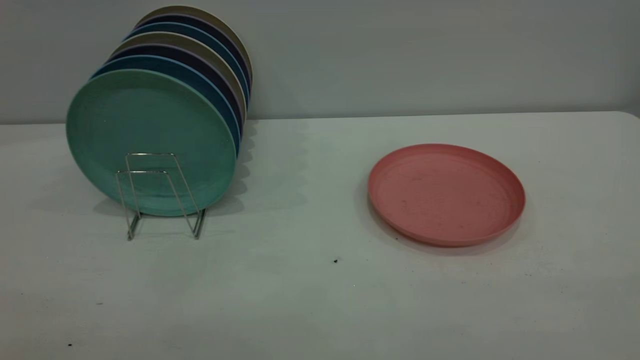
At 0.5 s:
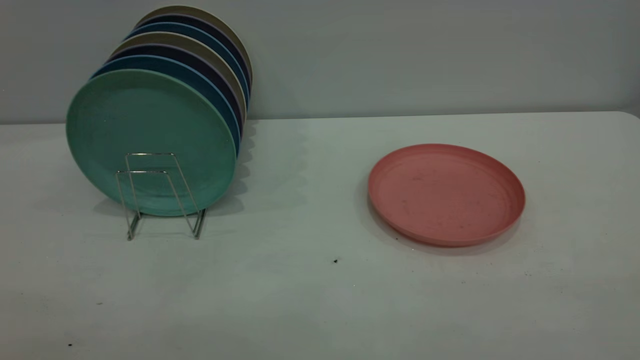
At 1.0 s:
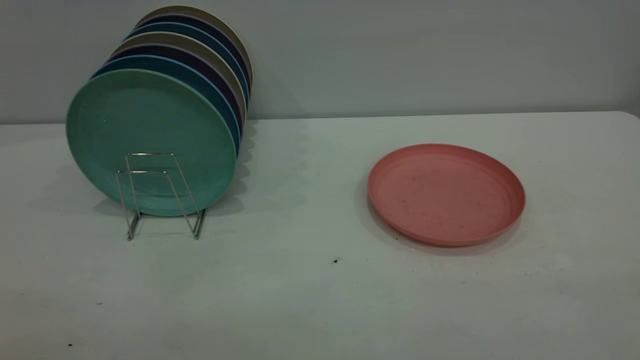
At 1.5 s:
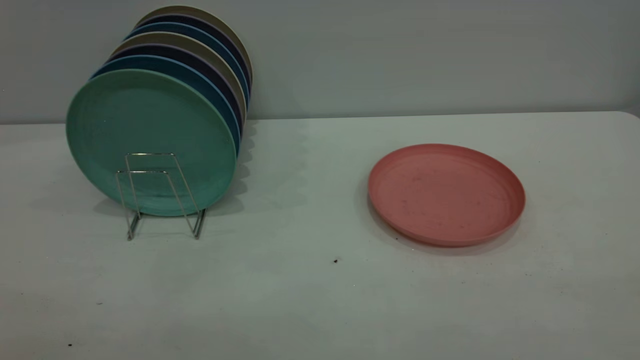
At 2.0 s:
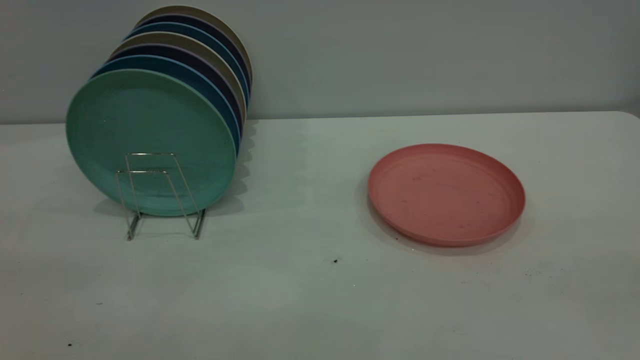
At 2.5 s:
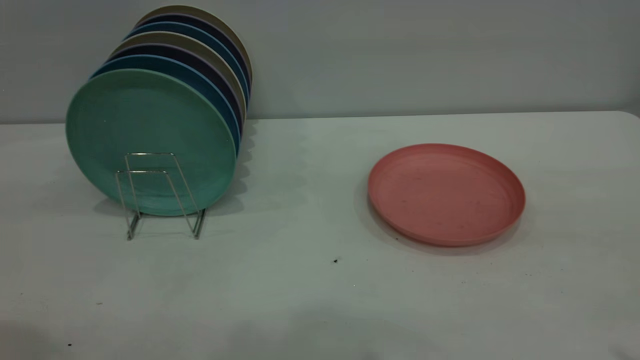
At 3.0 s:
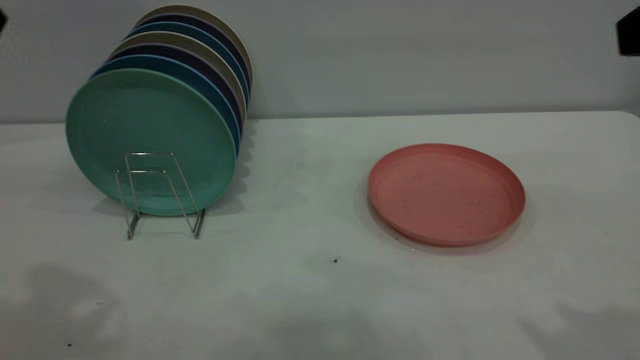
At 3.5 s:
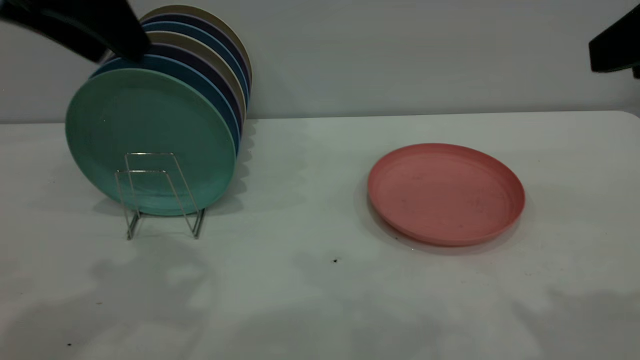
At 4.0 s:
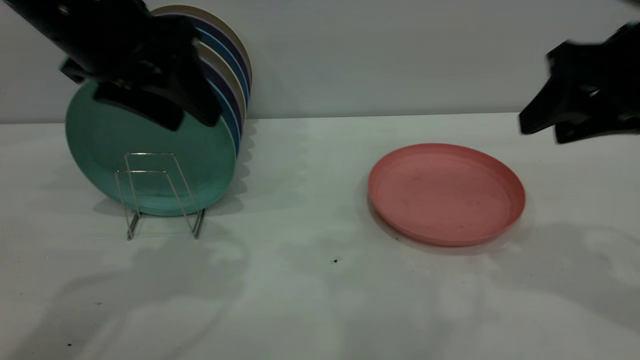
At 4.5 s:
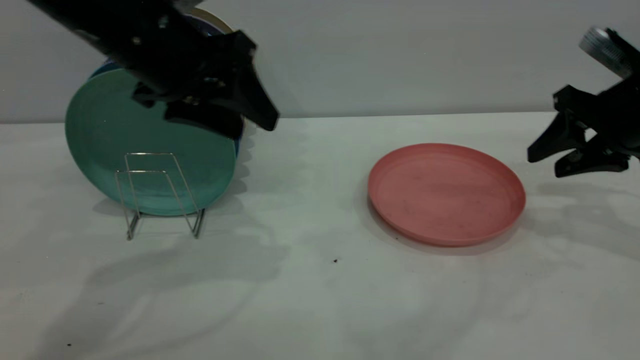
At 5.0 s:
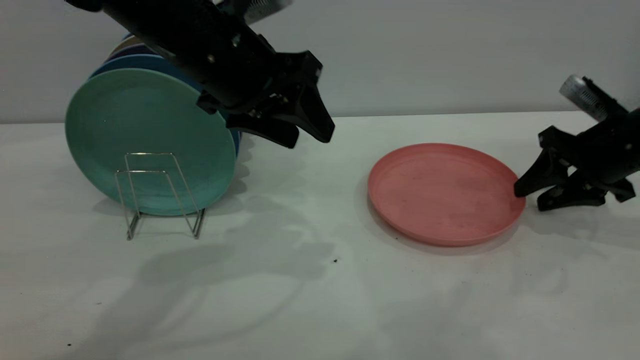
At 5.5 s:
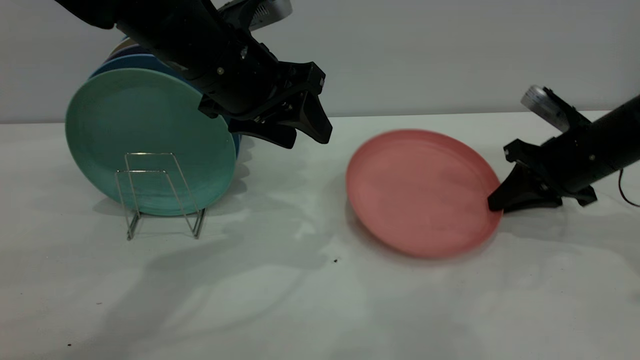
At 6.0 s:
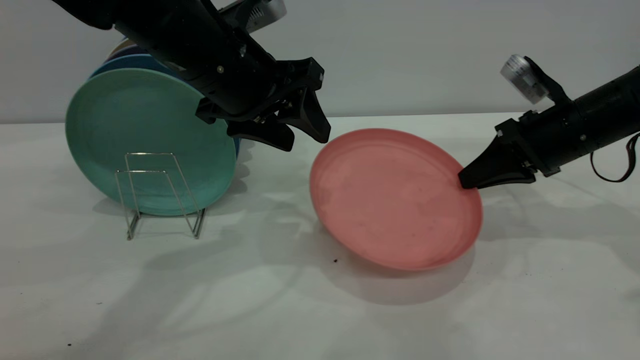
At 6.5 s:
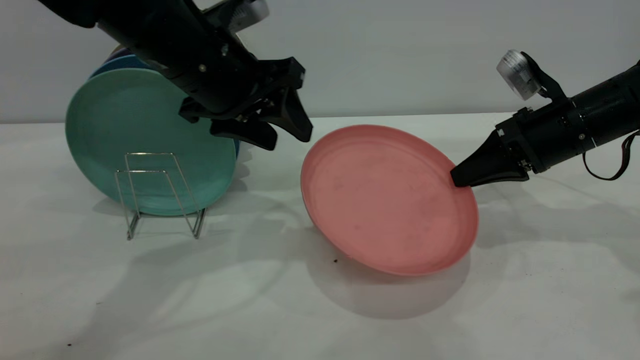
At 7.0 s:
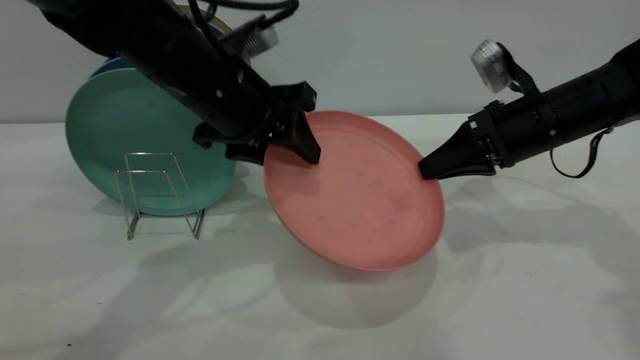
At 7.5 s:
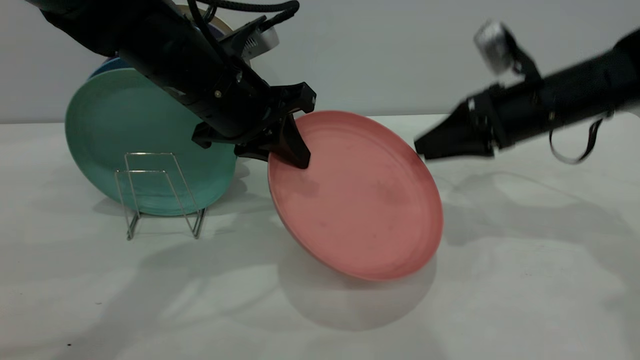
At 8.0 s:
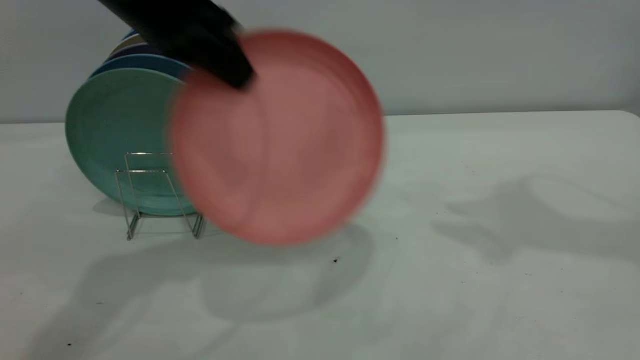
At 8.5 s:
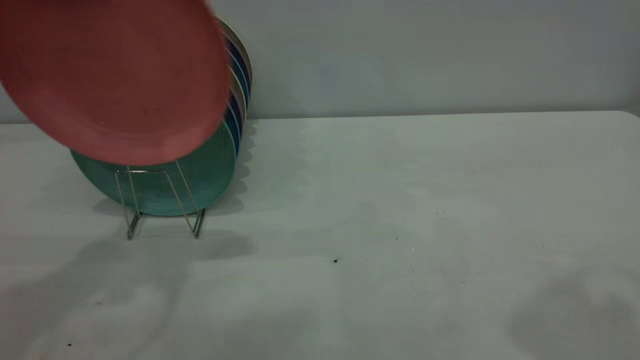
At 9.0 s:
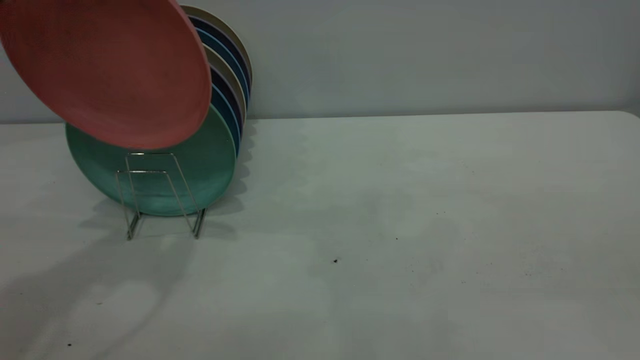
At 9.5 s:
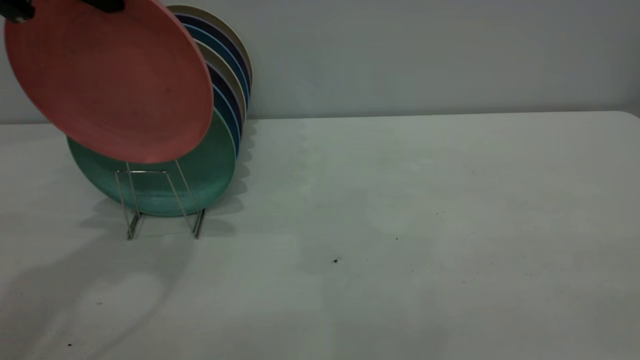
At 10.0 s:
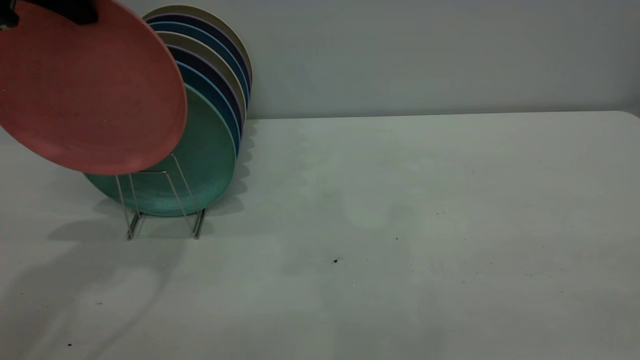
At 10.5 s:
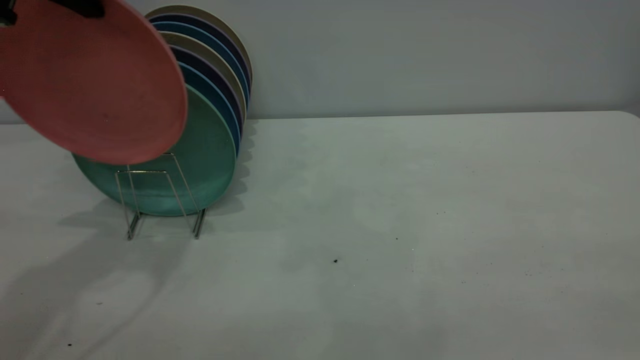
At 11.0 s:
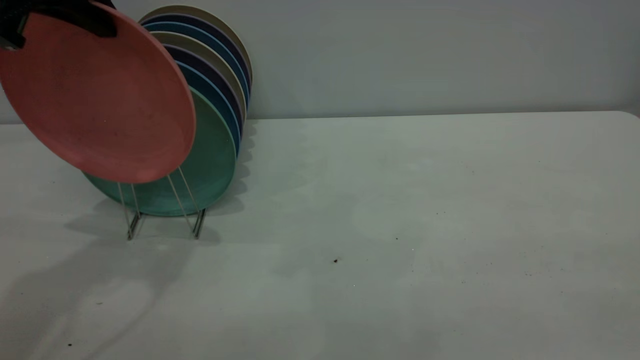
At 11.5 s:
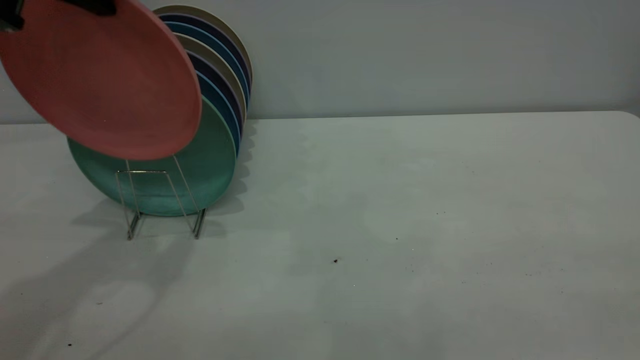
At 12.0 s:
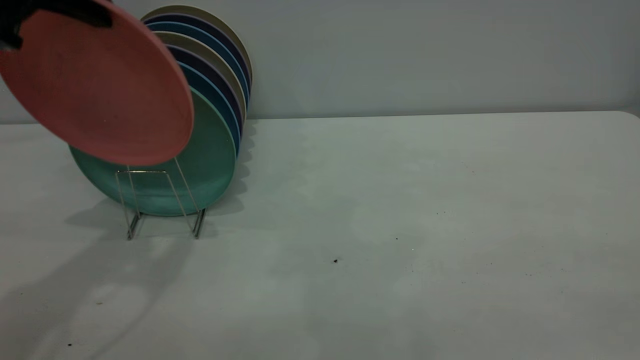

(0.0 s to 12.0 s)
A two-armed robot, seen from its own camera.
Task of the whole recording: the right gripper grasp the pink plate, the right gripper pass the pink plate to the left gripper, and the left gripper place the pink plate on the plate rack.
Step, 0.0 s - 5.5 s: Pick up the plate with the right gripper.
Step, 6.0 s - 7.5 s: Pass the plate from the right gripper to the left gripper.
2.0 s - 4.0 s: The left gripper goes approximately 30 cm forward, downward and to the right. The right gripper shifts about 30 cm forward and downward.
4.0 s - 6.0 s: The left gripper goes some 10 cm to the right and downward. The right gripper is displaced downward and forward by about 15 cm, and closes its fingers.
6.0 s - 8.0 s: The left gripper moves upward and to the left, approximately 10 cm, and closes up, while the right gripper is displaced upward by about 25 cm, and opens.
8.0 s - 10.0 s: The left gripper is displaced to the left by some 10 cm. The right gripper travels backward by approximately 35 cm, and closes.
10.0 s - 12.0 s: There are only small adjustments of the grippers.

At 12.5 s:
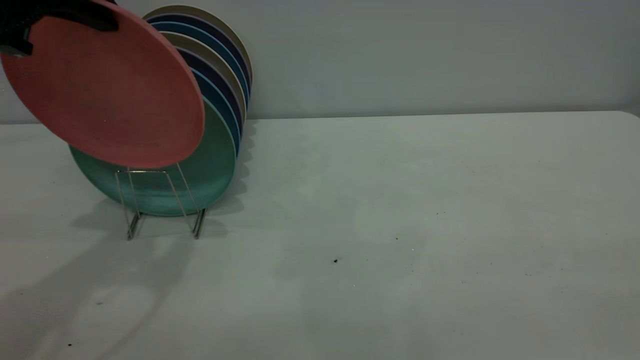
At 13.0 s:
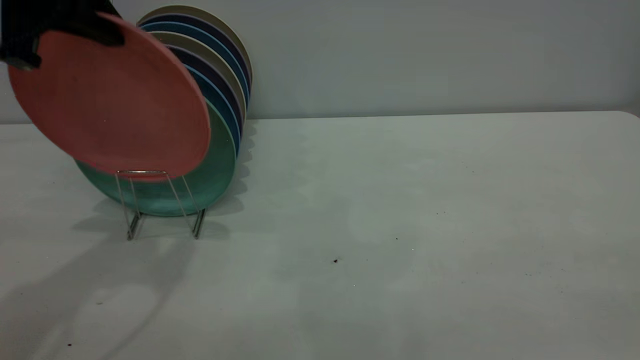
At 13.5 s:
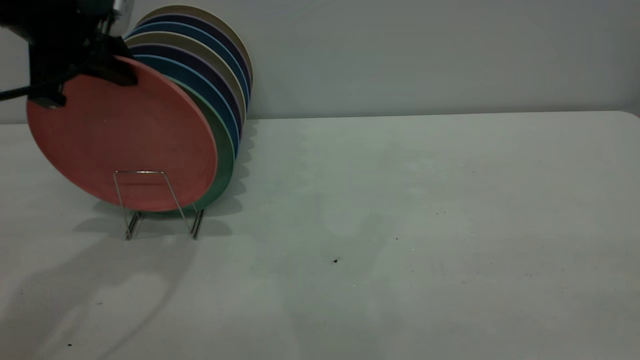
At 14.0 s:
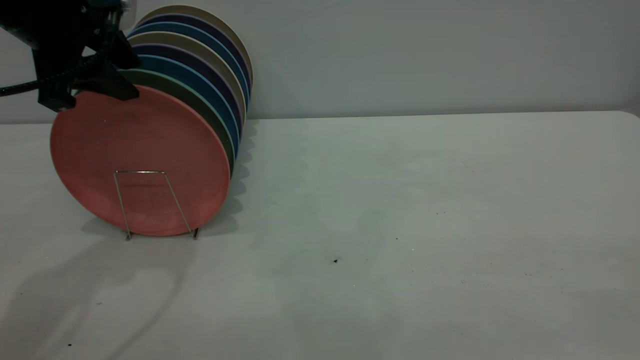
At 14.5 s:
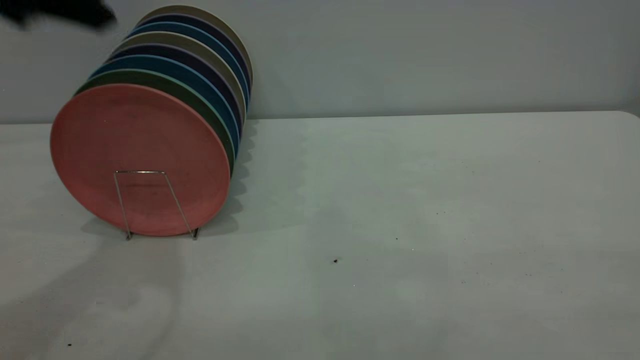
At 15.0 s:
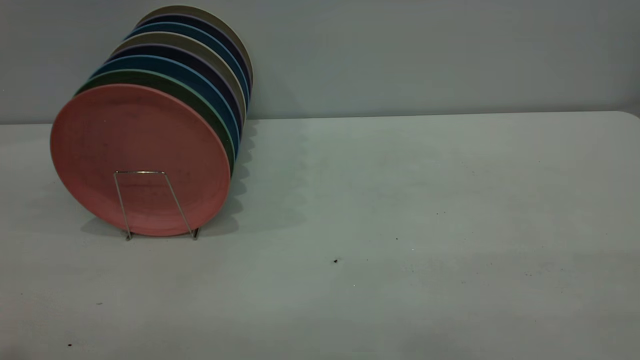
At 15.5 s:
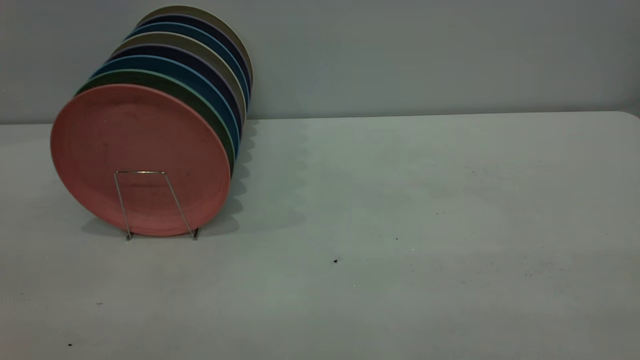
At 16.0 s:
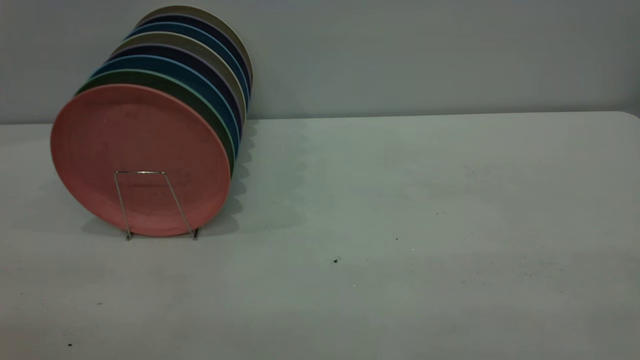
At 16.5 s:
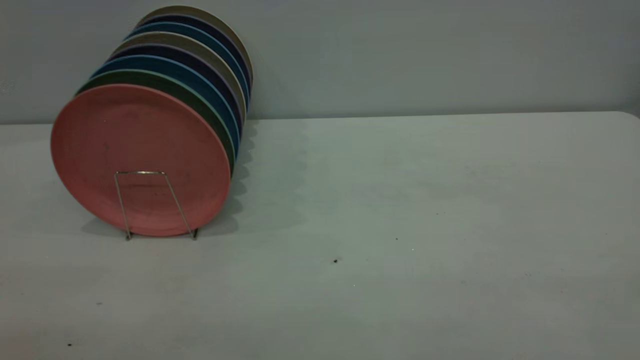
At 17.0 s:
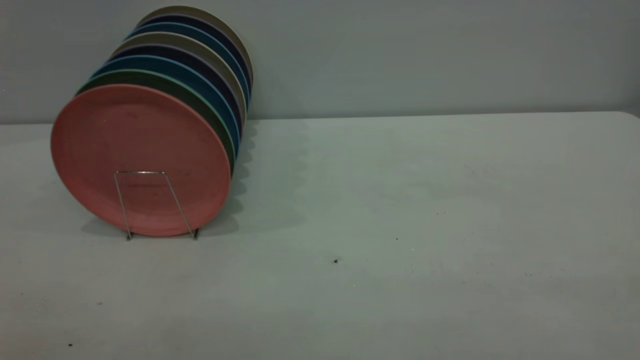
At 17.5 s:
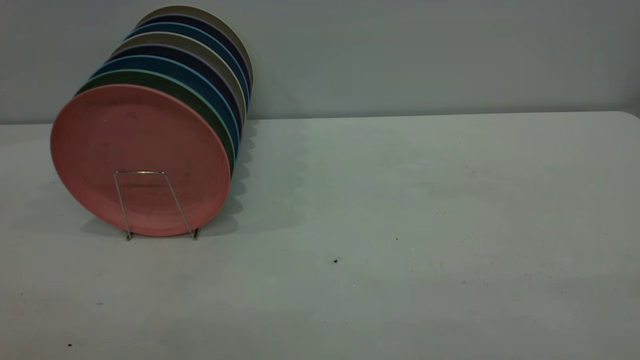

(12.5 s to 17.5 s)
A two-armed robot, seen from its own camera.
Task of the whole recording: the right gripper grasp the pink plate, the right gripper pass the pink plate to the left gripper, and the left gripper place the pink plate on the plate rack.
12.5 s - 15.0 s: The left gripper goes approximately 25 cm backward and upward, and opens up.

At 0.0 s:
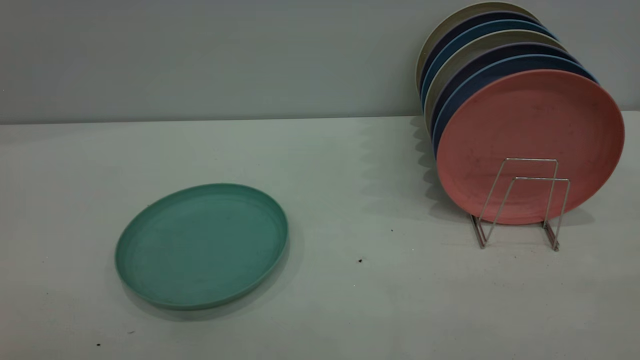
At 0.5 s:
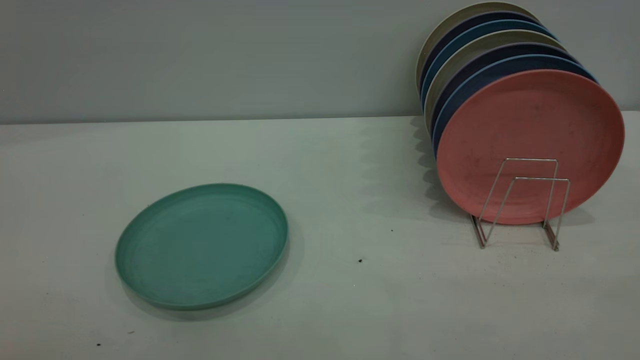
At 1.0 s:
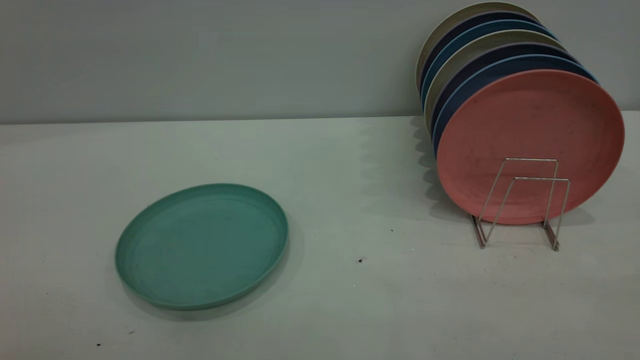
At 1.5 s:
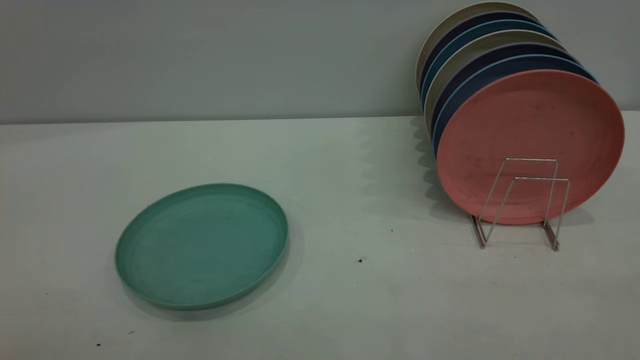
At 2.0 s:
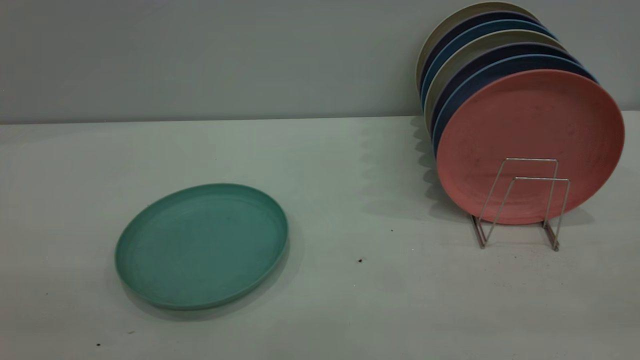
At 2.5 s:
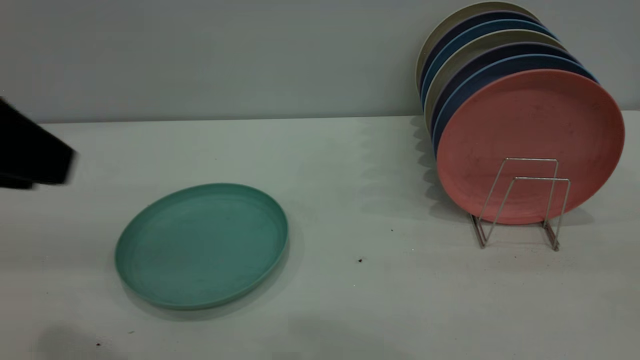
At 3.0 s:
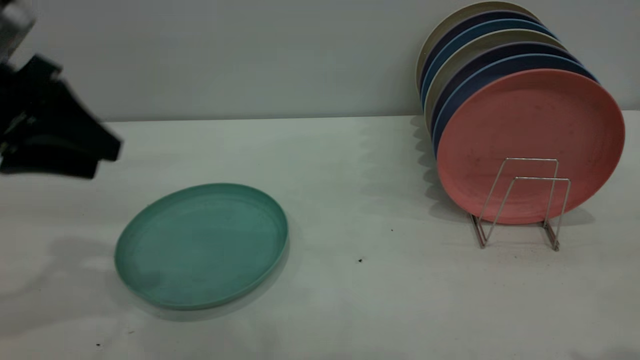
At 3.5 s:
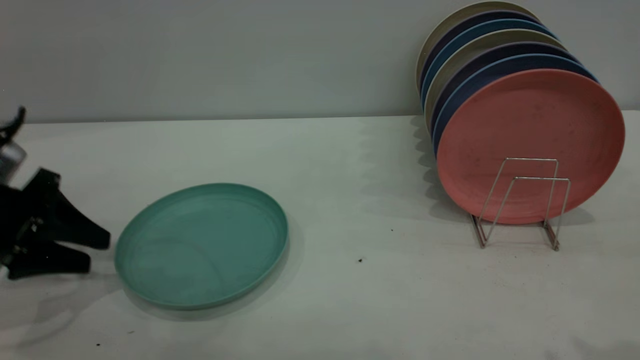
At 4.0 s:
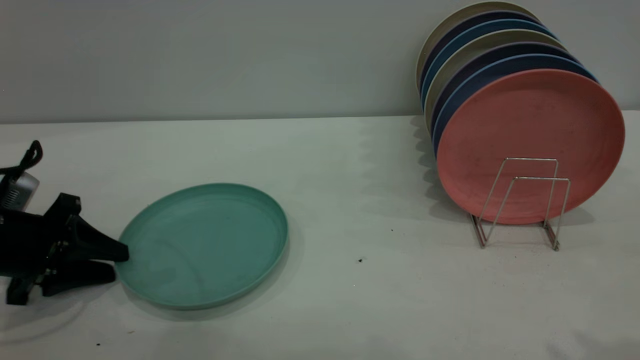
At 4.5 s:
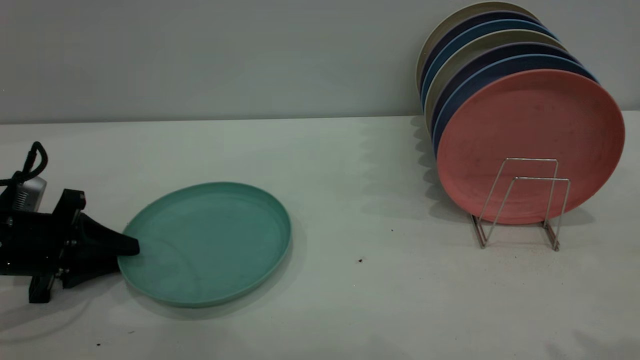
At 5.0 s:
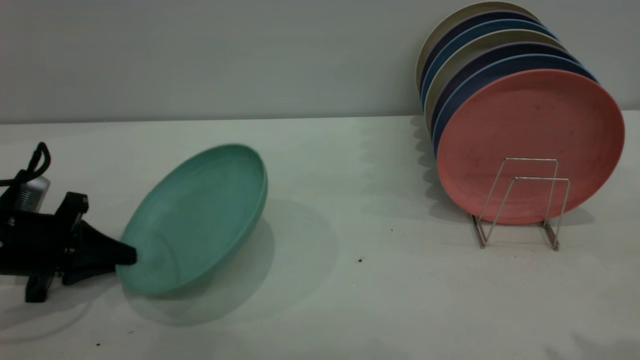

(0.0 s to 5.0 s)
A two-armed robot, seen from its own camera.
Task of the whole recording: the left gripper grasp the green plate, the left gripper pass the green plate to the right gripper, and the right gripper place the green plate on the plate rack.
0.0 s - 2.5 s: The left gripper is displaced forward by some 20 cm.
2.5 s - 5.0 s: The left gripper moves downward, forward and to the left, some 30 cm, and closes up.
